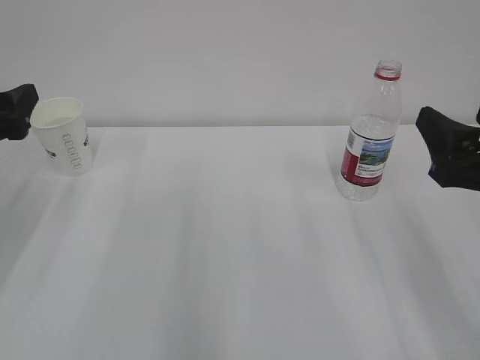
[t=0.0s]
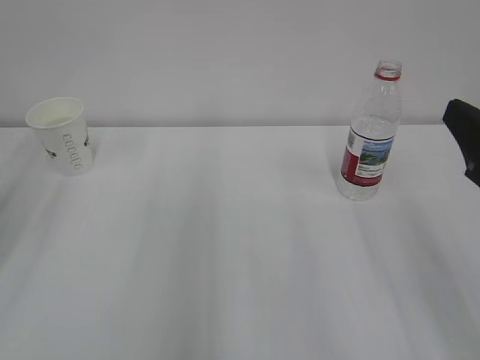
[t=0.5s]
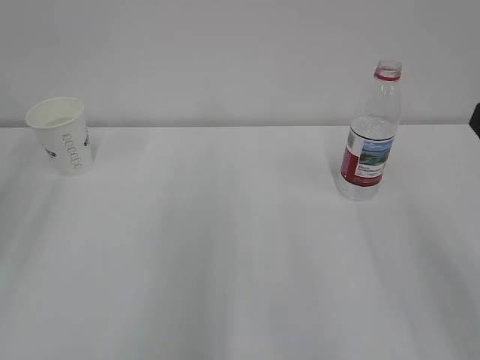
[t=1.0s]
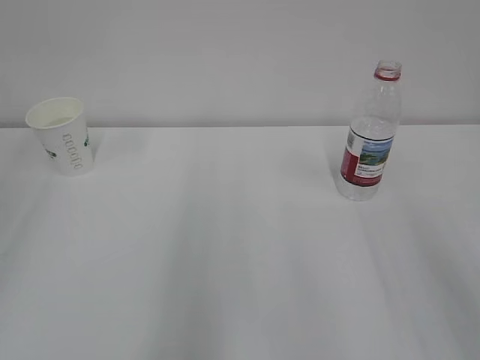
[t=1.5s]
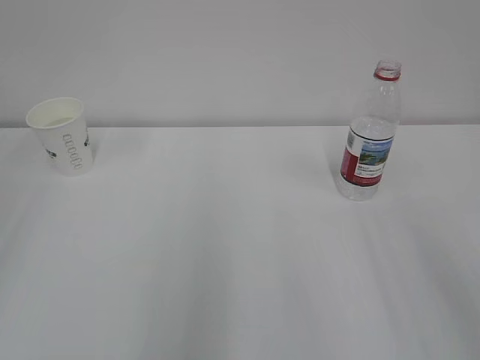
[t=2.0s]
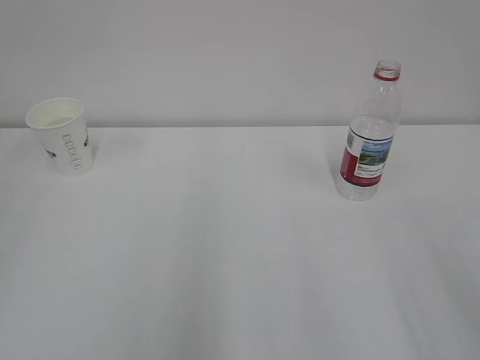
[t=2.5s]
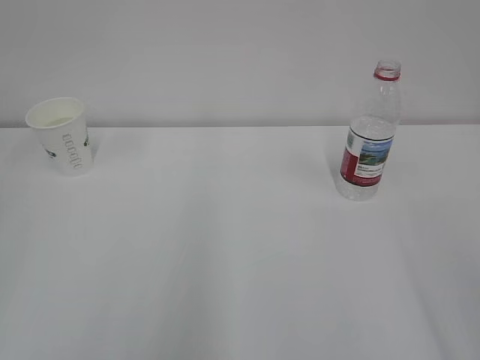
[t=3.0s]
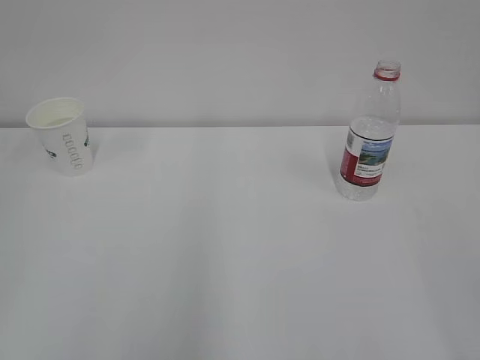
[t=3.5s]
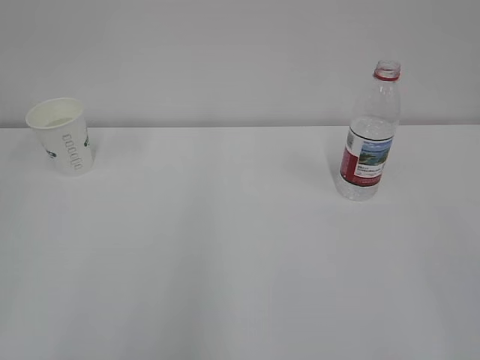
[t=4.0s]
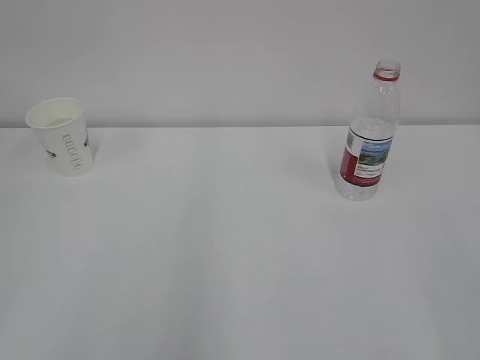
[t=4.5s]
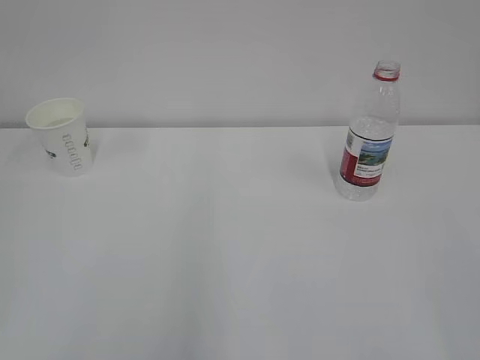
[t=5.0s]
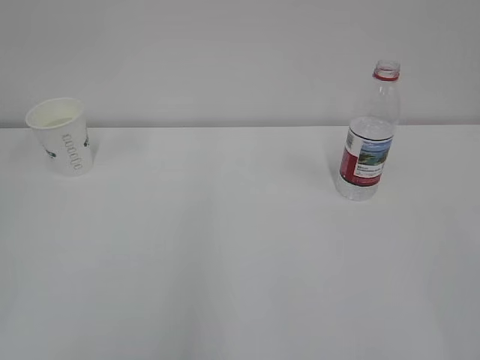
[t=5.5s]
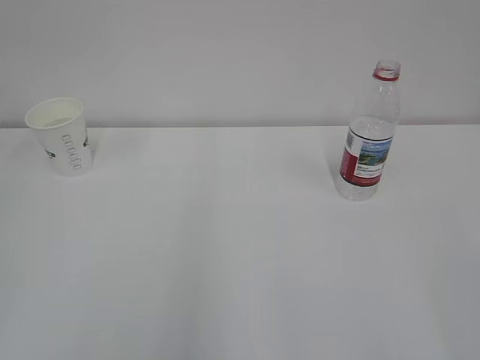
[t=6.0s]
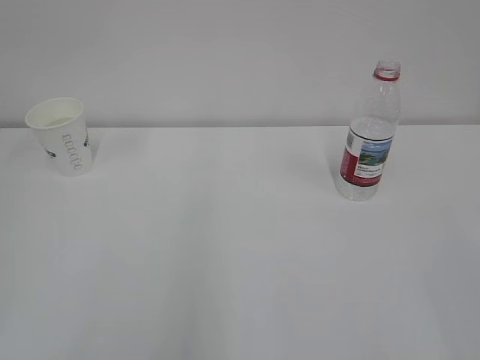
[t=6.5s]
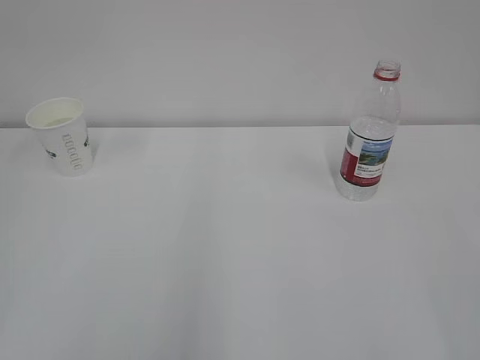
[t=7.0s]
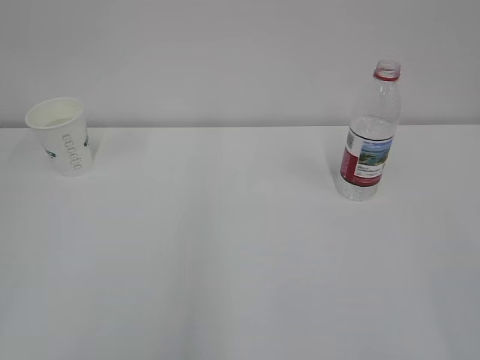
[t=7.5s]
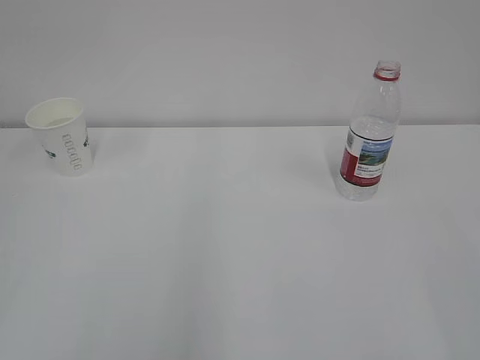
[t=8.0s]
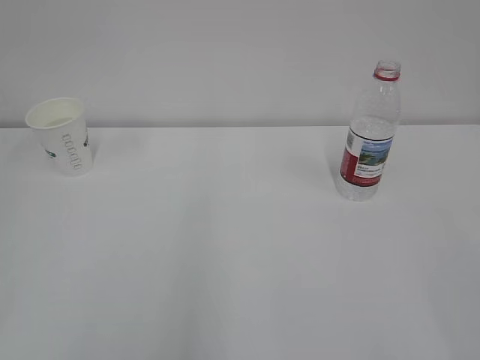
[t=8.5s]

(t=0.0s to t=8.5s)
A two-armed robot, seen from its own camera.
t=0.0s - t=2.0s: The right gripper shifts roughly 10 cm backward and upward. The left gripper shifts approximately 25 cm backward and upward.
t=6.5s - t=8.5s: Neither gripper changes place.
